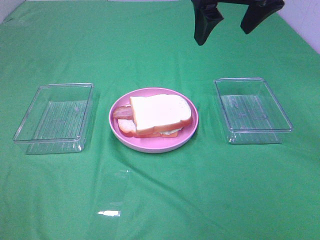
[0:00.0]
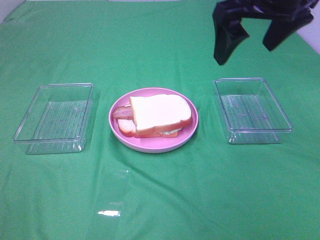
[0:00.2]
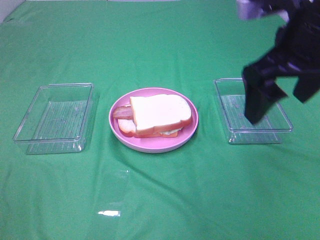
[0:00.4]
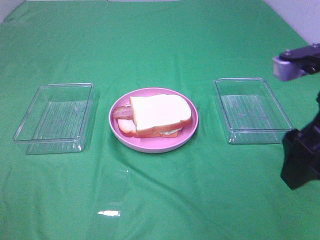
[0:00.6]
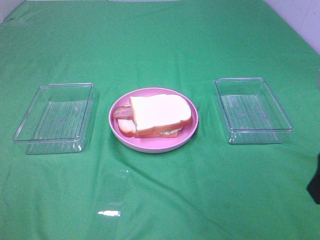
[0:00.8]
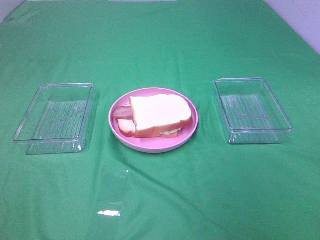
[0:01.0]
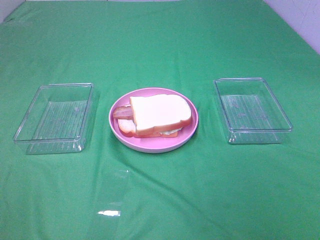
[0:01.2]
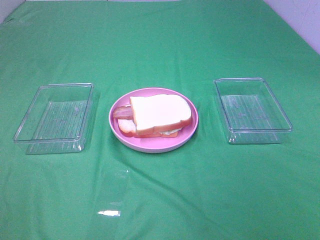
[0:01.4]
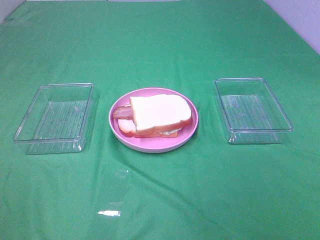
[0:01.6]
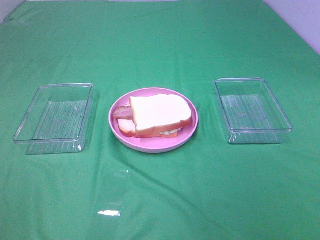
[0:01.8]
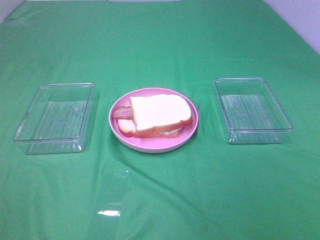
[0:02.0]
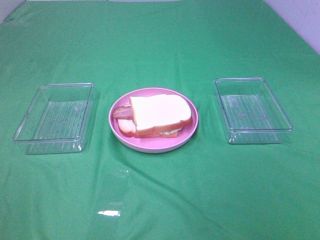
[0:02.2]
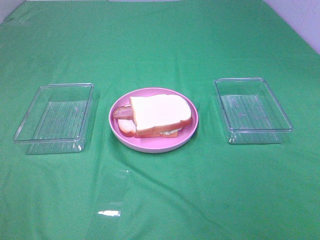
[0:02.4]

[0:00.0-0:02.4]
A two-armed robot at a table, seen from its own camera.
Task of the whole recording: Make sandwiches.
0:00.0 to 0:01.2: The right gripper travels backward and to the right by approximately 35 cm.
